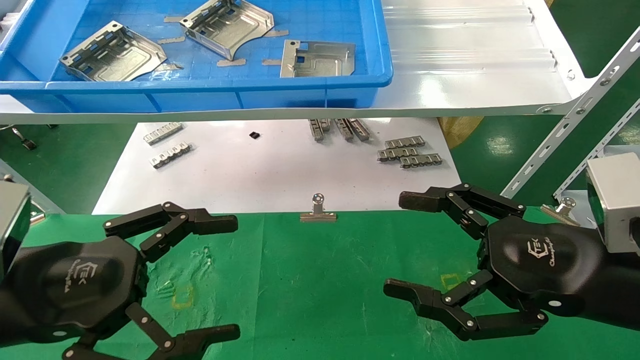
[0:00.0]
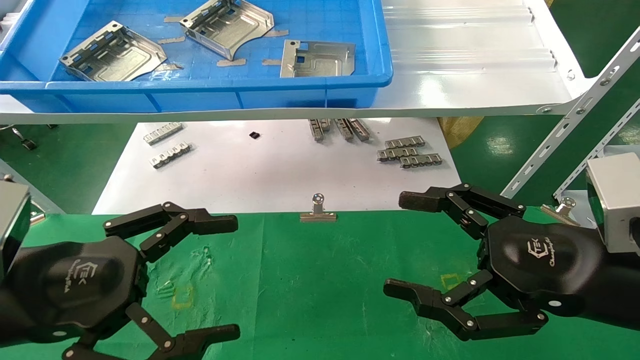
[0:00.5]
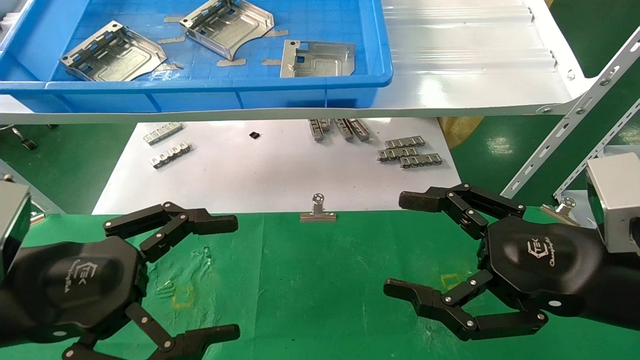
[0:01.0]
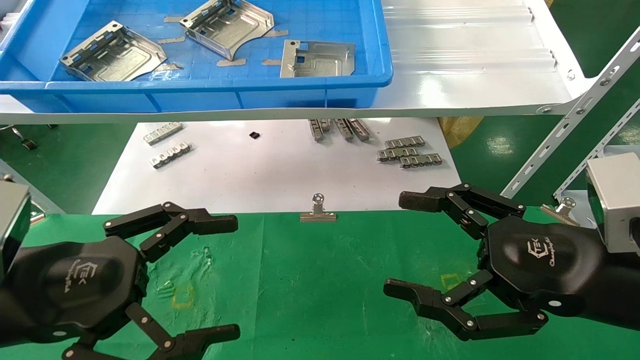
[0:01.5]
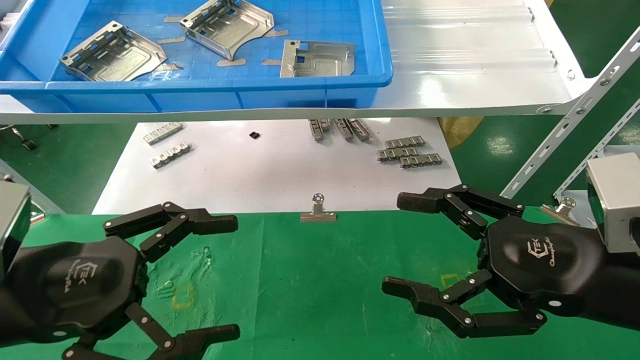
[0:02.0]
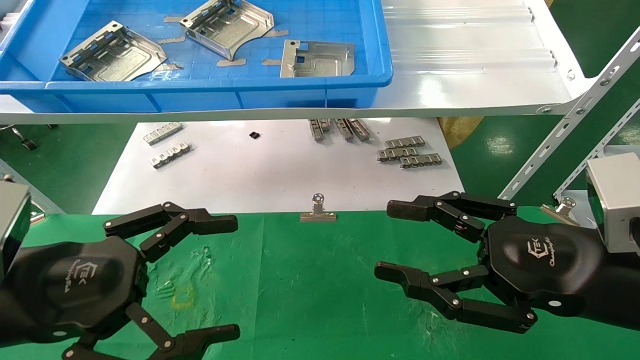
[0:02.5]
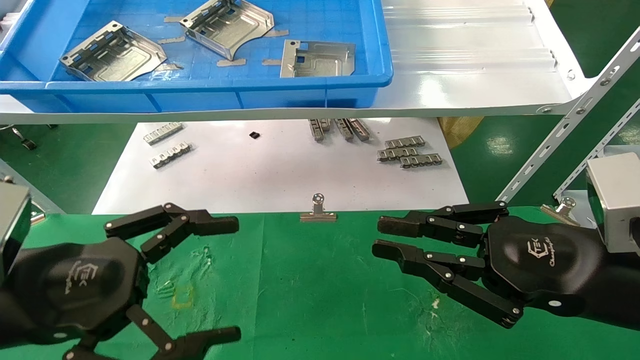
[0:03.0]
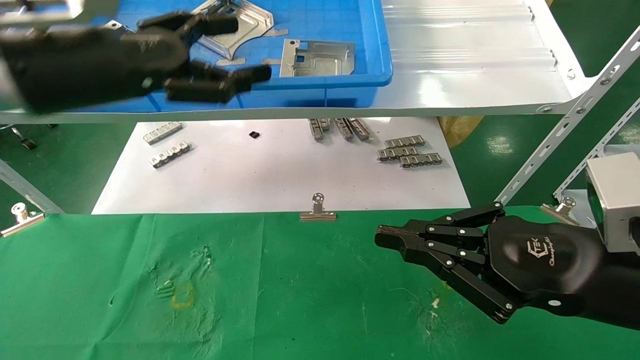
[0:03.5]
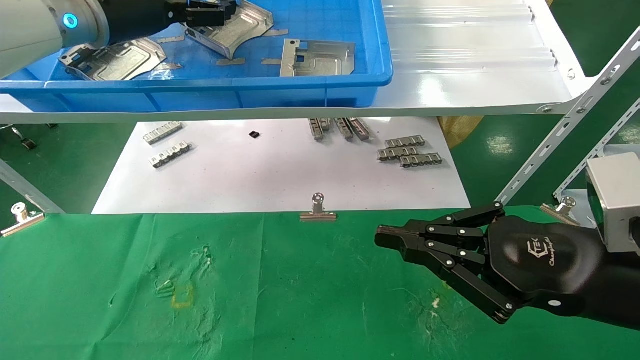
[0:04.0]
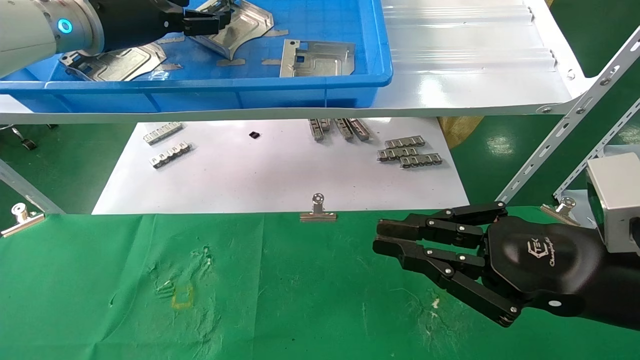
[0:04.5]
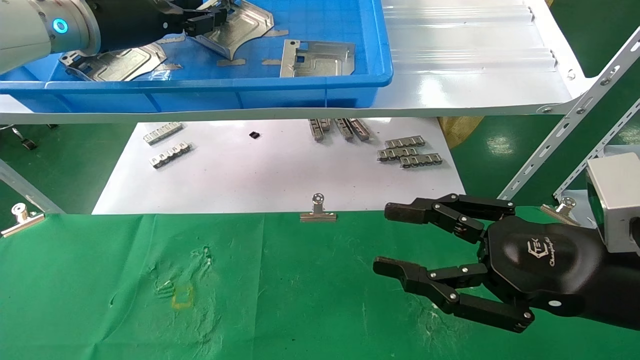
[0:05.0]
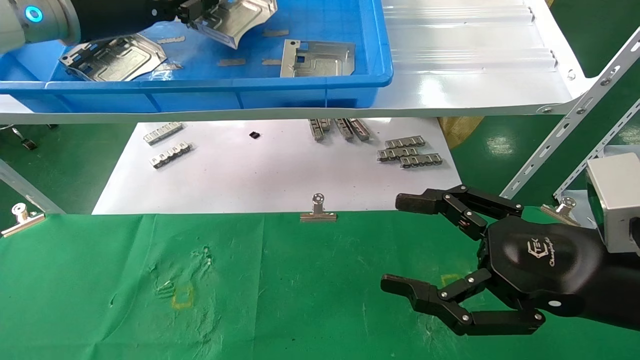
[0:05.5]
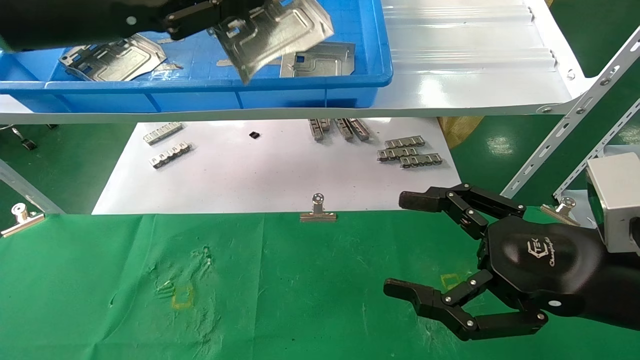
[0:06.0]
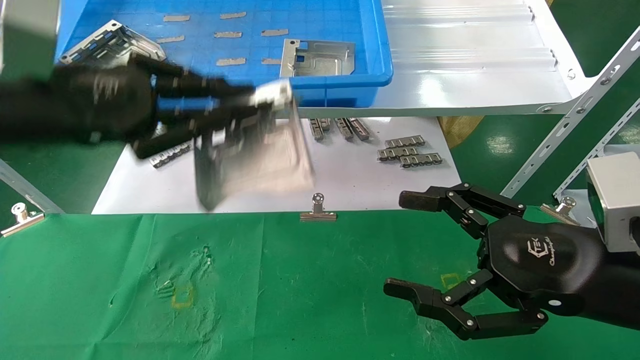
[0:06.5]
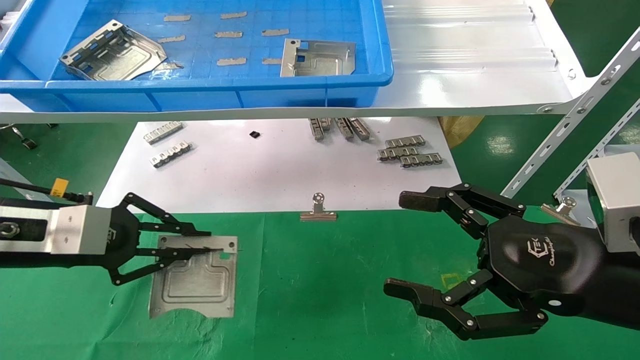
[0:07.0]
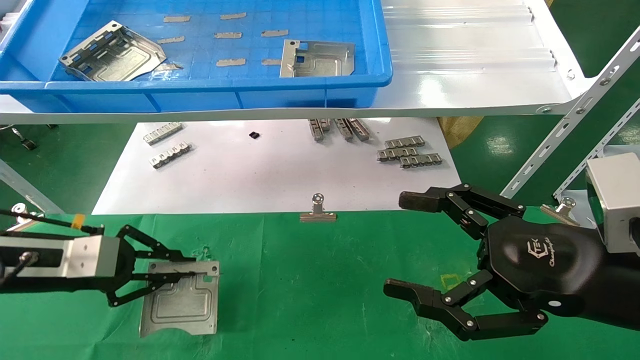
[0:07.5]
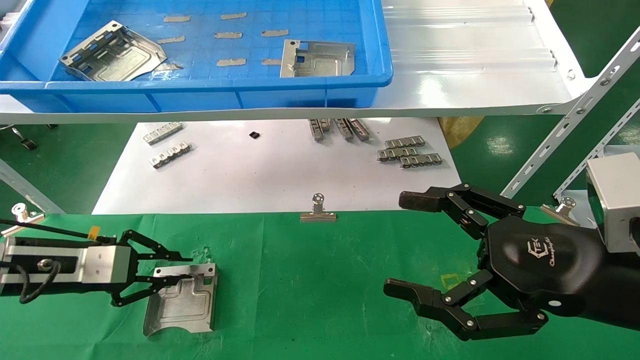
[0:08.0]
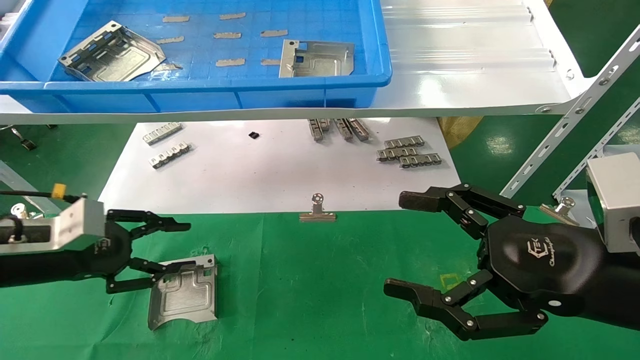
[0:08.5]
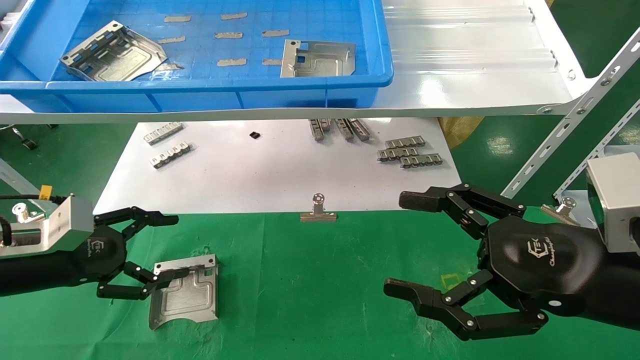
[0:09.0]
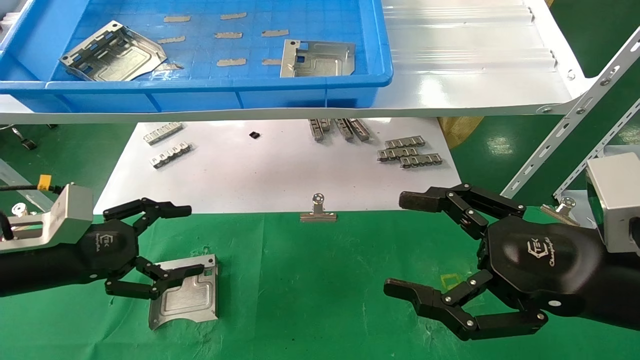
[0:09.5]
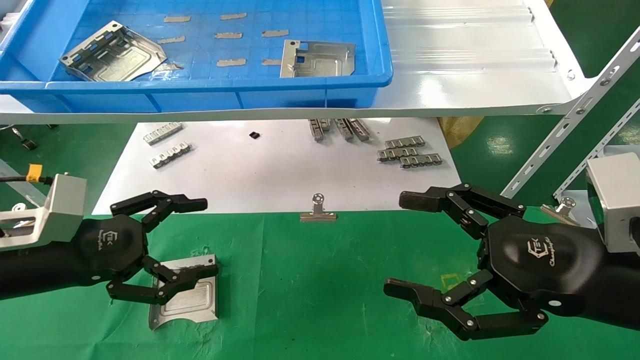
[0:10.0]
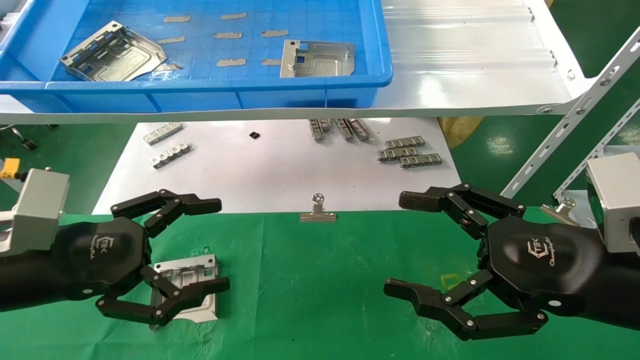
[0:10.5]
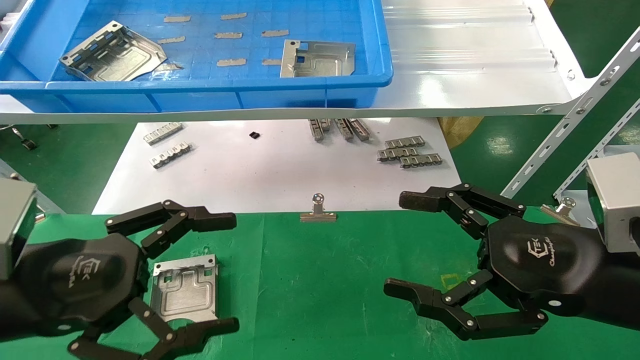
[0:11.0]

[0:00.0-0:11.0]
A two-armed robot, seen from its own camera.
Task of the whole recording: use the mechanical arm to pick up the parts and place them on the table.
Step, 0:03.5 to 0:05.0: Pick up the hard drive bracket from the feeding area.
Step, 0:05.5 to 0:08.0: Place the hard drive bracket into the box.
0:00.0 to 0:02.0: Neither gripper changes place.
0:02.0 to 0:03.5: The right gripper closes its fingers, while the left gripper is displaced upward and forward by roughly 20 cm.
0:03.5 to 0:05.5: The right gripper opens, while the left gripper goes some 10 cm forward and upward, and closes.
0:05.5 to 0:07.5: The left gripper is displaced downward by about 25 cm.
0:07.5 to 0:09.0: The left gripper opens.
0:09.0 to 0:11.0: The left gripper shifts roughly 15 cm backward, to the right and upward.
